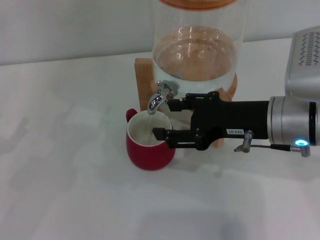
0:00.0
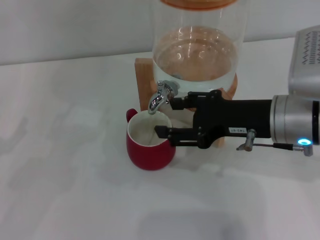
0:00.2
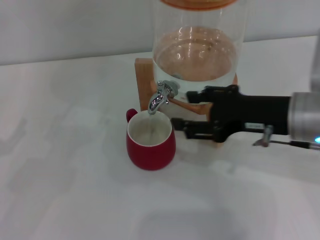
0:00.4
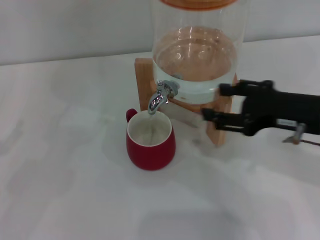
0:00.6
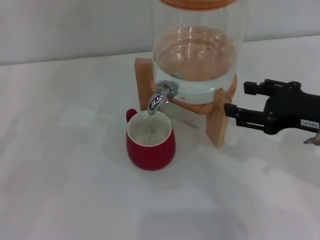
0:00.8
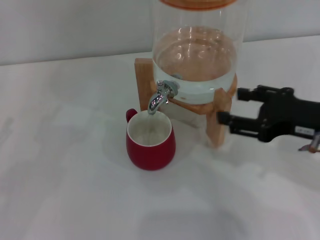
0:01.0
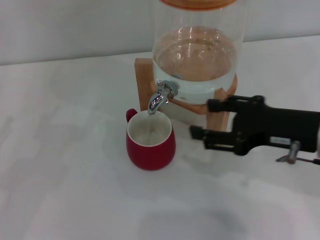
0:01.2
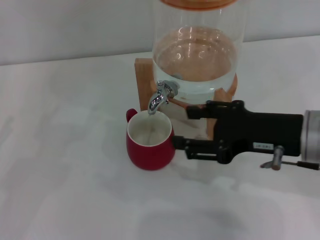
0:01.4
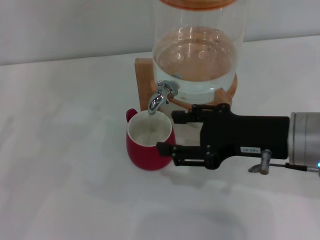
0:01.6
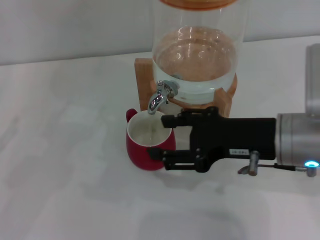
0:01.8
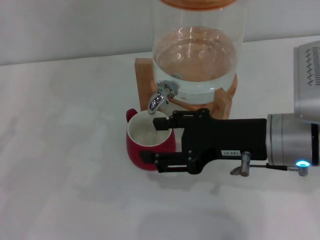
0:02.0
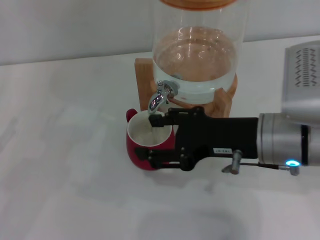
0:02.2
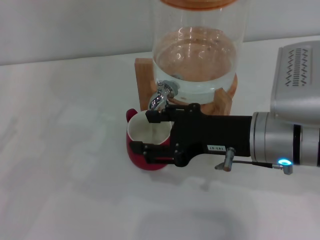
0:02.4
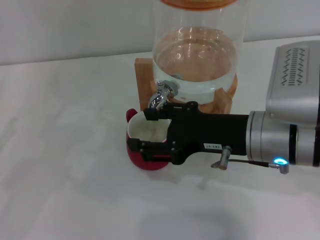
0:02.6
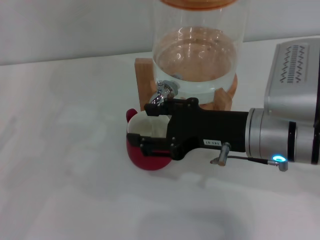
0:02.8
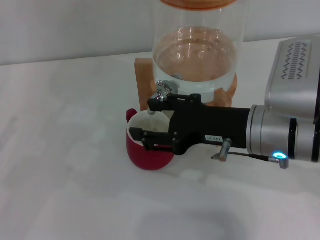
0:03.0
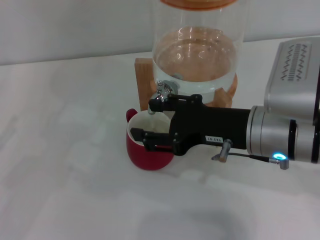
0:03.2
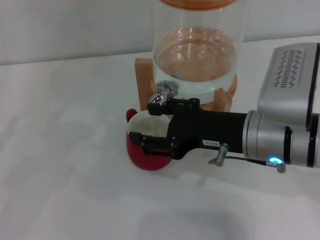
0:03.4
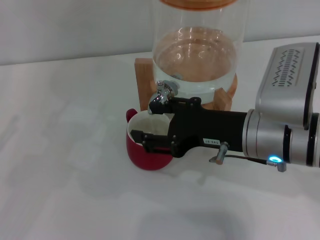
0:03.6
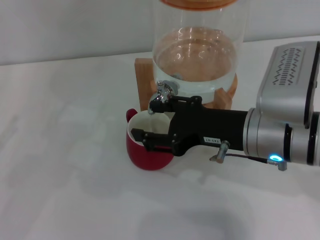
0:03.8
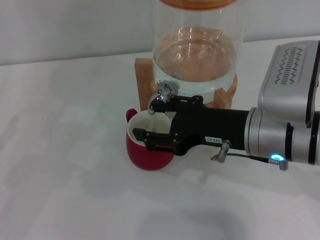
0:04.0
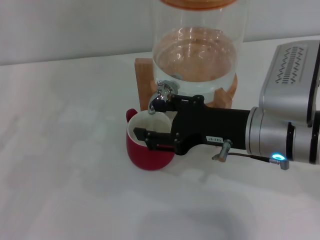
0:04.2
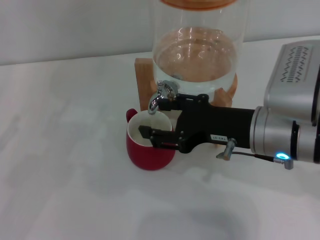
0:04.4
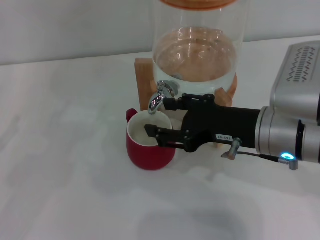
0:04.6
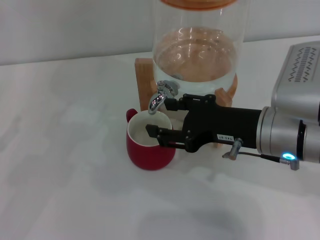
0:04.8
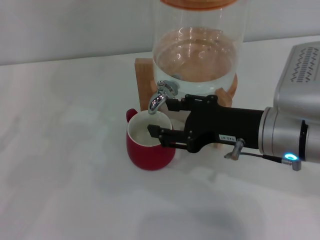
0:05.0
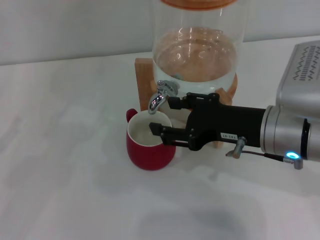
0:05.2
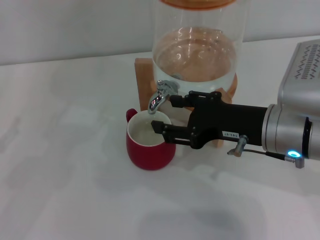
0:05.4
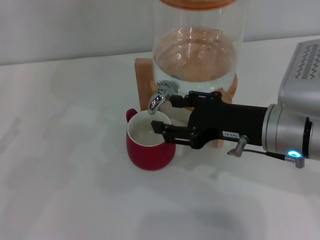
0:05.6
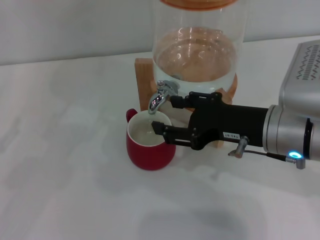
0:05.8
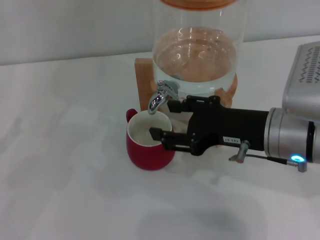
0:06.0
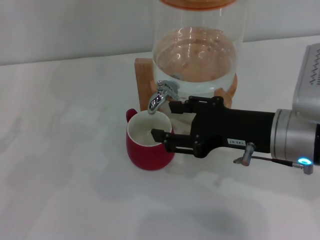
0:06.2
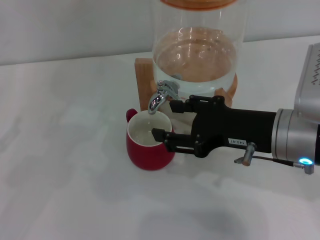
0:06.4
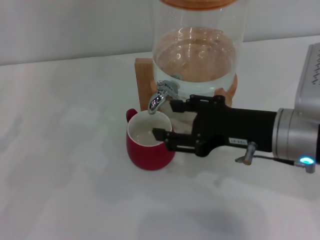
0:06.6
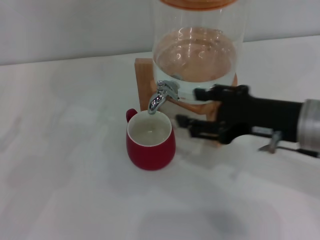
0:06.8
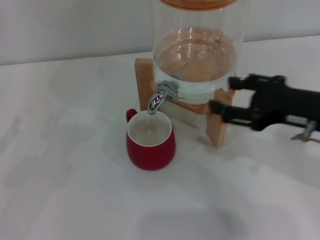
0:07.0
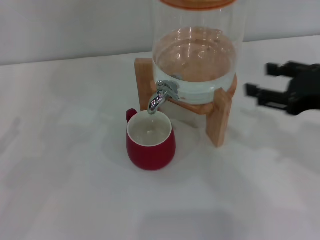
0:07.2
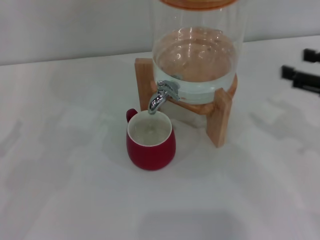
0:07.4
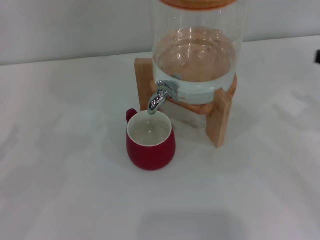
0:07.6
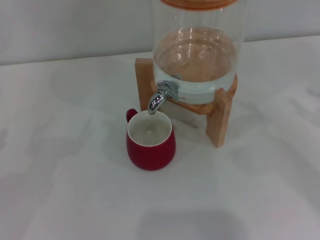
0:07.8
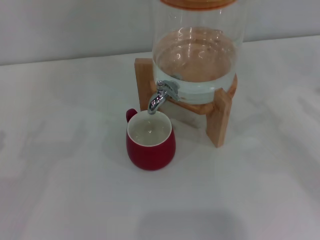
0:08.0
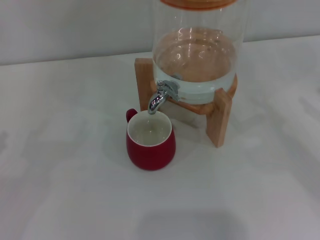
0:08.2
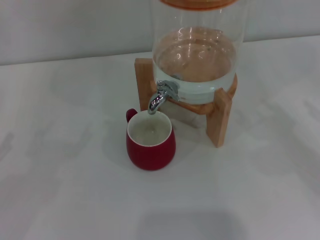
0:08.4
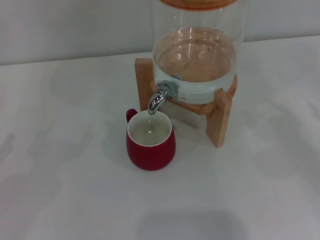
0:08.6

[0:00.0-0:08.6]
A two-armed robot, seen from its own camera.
Task of the whole recording: the left gripper pick up the red cup and place it horizontally under the faucet, the right gripper turn on the faucet to fill the cup, and then turn off the faucet.
Step, 0:00.0 to 0:02.0: Open the dispenser valve and fill the cup with water with the right gripper.
Step, 0:02.2 to 0:06.2: Close the dispenser valve with the right gripper.
0:00.0 to 0:01.4: The right gripper reaches roughly 10 cm to the right, then returns.
0:01.4 to 0:02.8: The right gripper goes some 5 cm to the left.
0:02.8 to 0:04.4: Both grippers stay about where they are.
0:04.4 to 0:05.8: The grippers move only a little.
0:05.8 to 0:07.2: The right gripper moves to the right, roughly 10 cm.
0:07.2 to 0:08.6: The right gripper travels to the right by some 15 cm.
